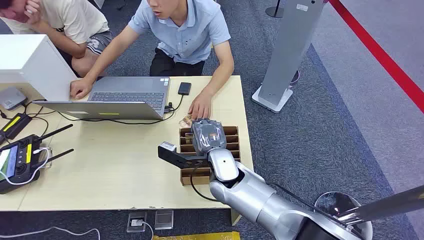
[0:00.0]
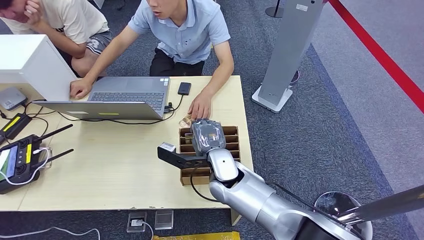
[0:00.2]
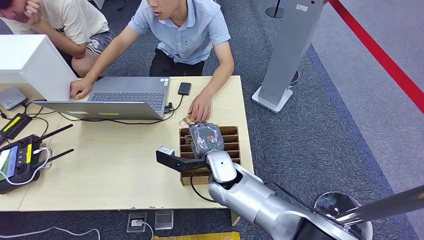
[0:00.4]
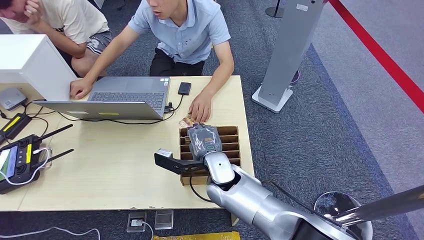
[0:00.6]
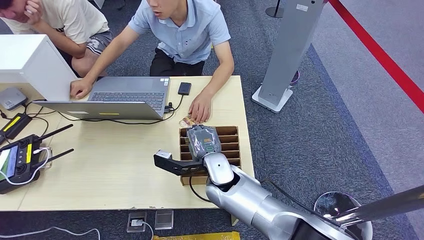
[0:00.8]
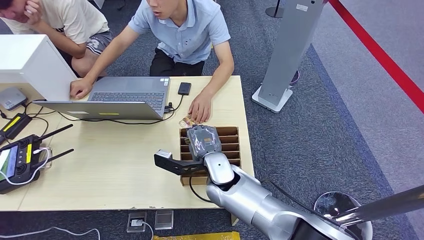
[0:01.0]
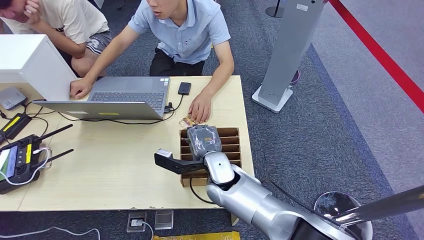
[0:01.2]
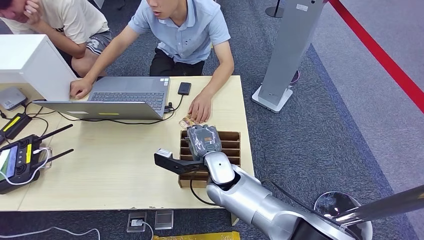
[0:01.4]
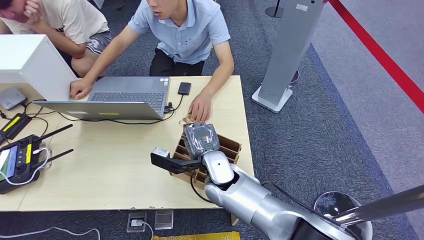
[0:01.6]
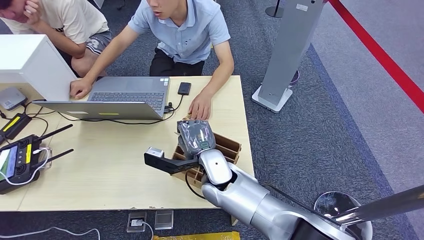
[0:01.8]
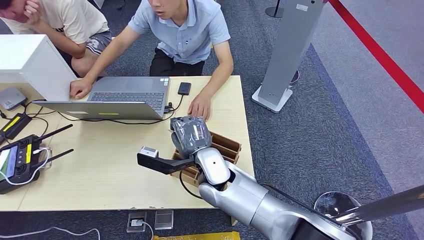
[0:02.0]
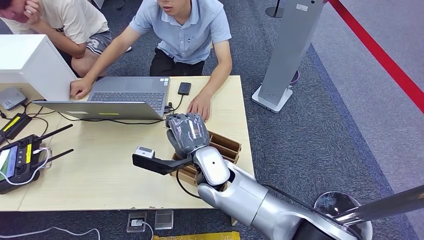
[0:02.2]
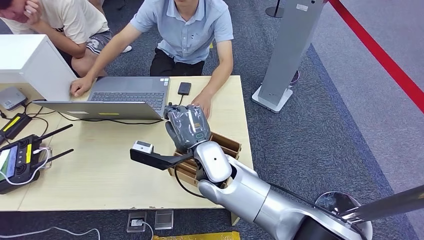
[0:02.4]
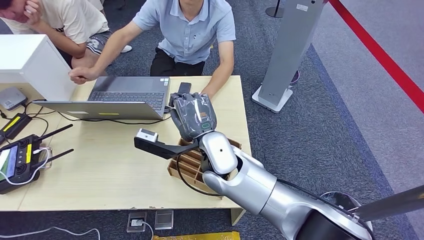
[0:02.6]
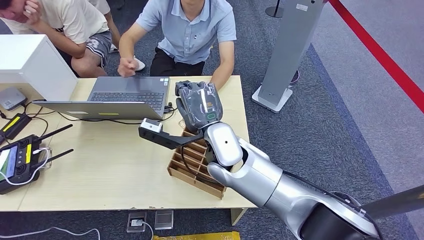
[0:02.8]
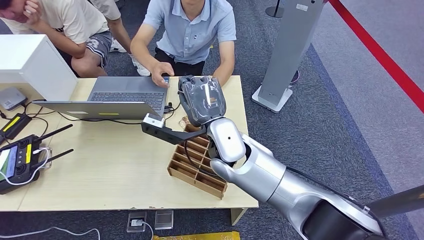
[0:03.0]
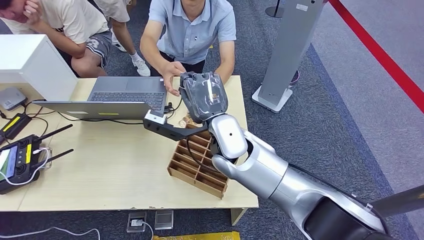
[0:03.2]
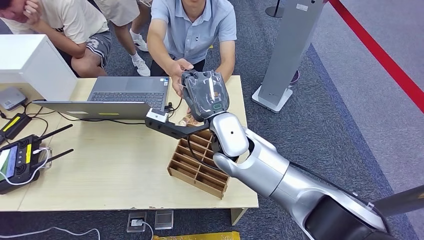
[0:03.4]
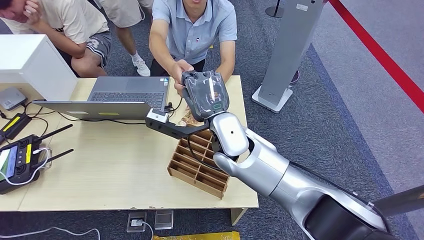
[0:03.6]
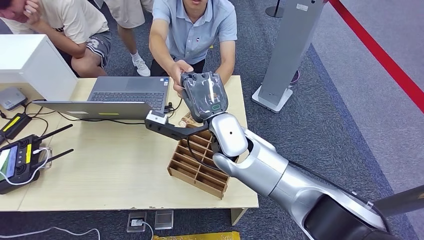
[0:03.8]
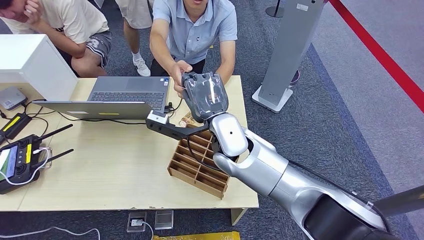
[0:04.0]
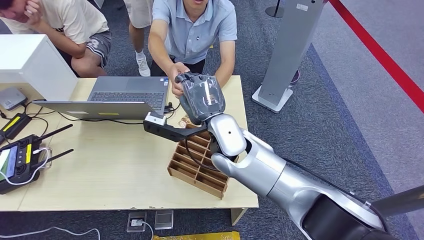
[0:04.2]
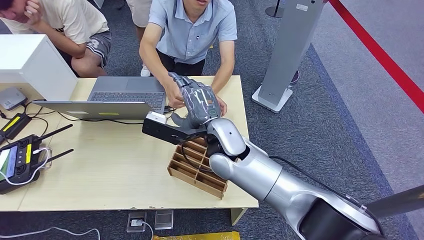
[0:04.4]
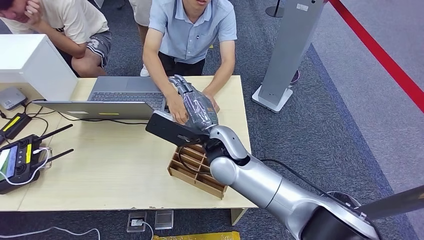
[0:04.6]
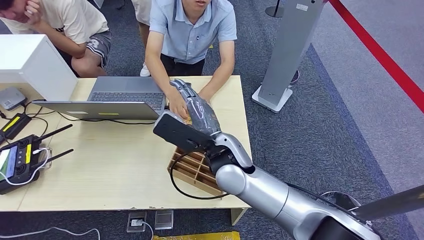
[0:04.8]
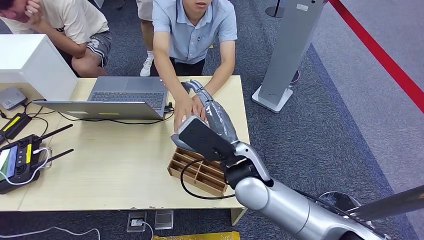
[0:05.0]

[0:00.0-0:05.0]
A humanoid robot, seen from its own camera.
Task of the whole recording: Pick up the card and hand it over to the target person.
Step, 0:00.0 to 0:02.2: Pick up the key card from the card box.
Step, 0:02.6 to 0:05.0: Hand the key card to the target.
0:03.4 to 0:05.0: The right hand is displaced backward and to the right by roughly 20 cm.
